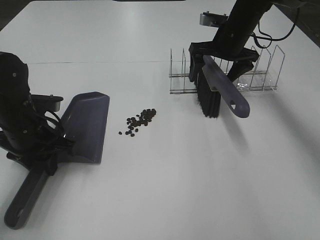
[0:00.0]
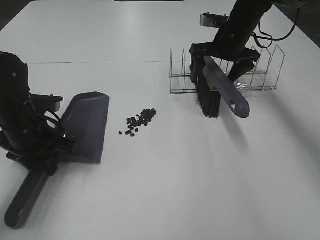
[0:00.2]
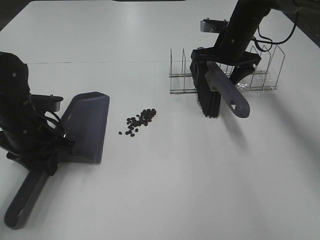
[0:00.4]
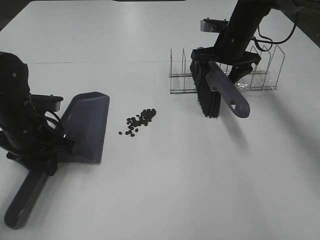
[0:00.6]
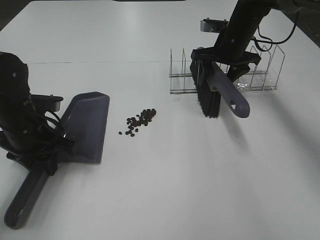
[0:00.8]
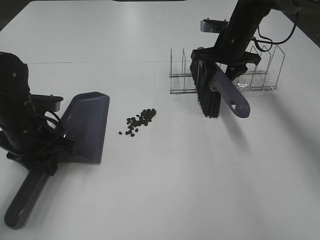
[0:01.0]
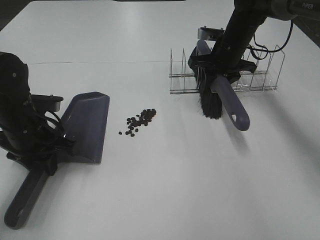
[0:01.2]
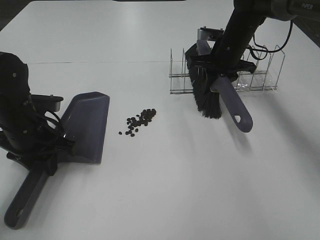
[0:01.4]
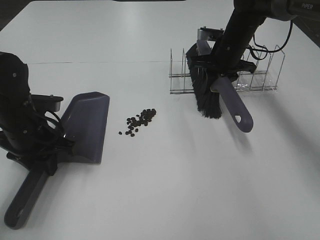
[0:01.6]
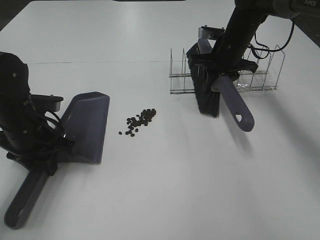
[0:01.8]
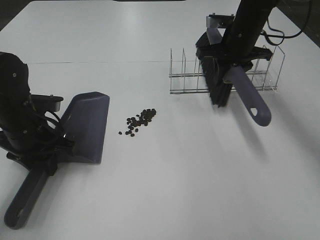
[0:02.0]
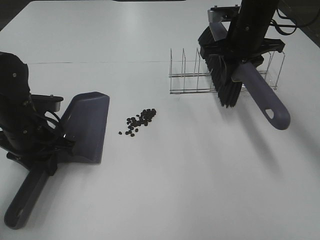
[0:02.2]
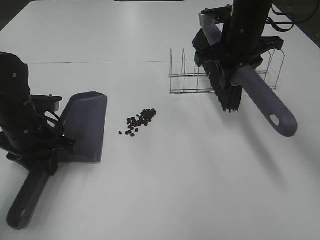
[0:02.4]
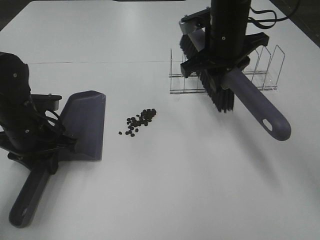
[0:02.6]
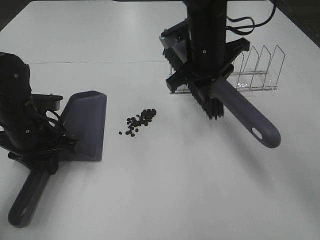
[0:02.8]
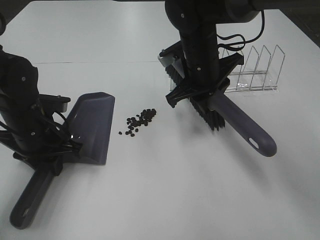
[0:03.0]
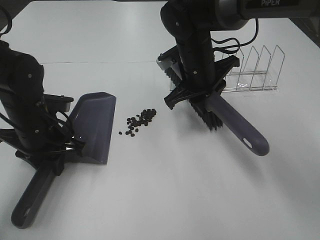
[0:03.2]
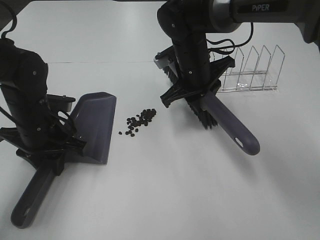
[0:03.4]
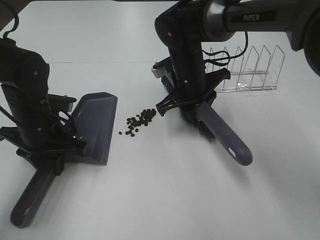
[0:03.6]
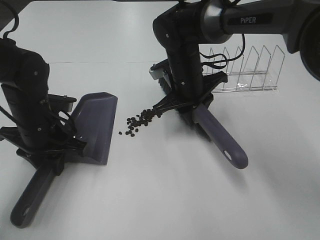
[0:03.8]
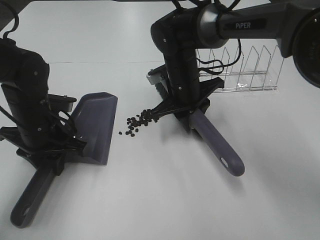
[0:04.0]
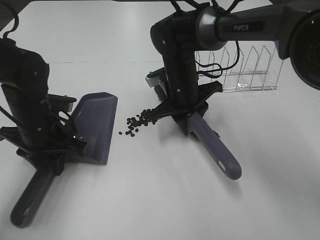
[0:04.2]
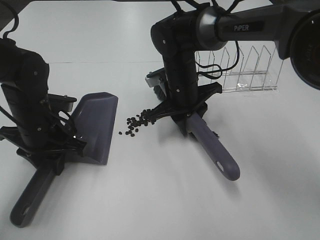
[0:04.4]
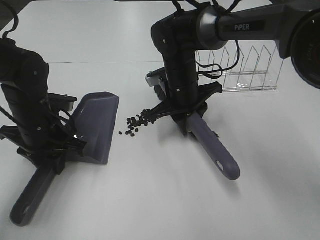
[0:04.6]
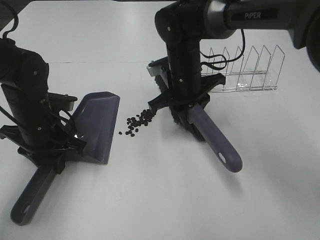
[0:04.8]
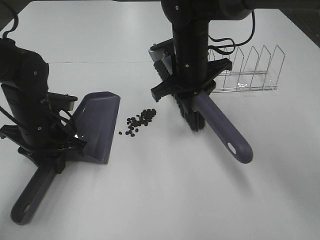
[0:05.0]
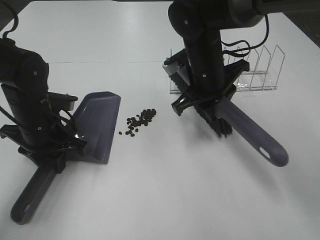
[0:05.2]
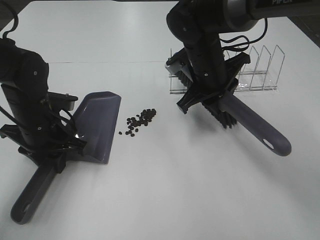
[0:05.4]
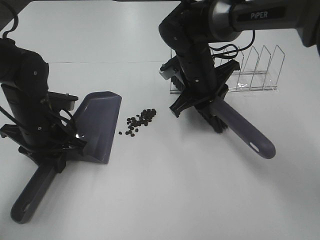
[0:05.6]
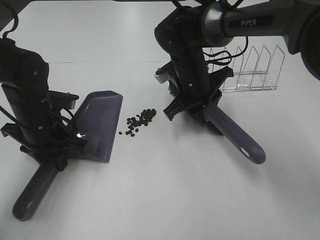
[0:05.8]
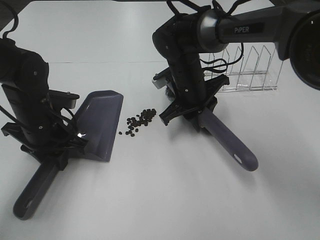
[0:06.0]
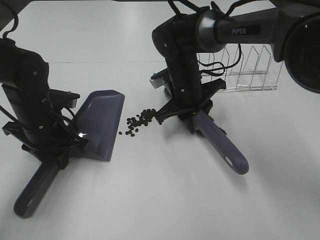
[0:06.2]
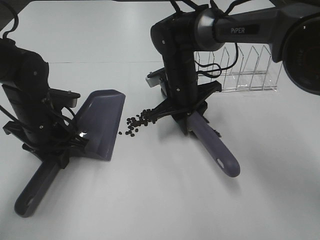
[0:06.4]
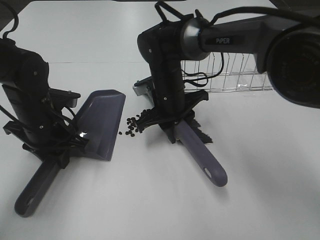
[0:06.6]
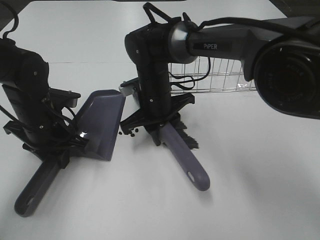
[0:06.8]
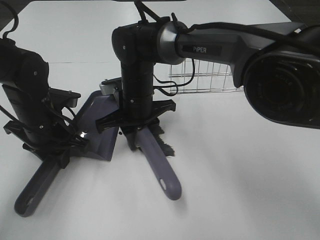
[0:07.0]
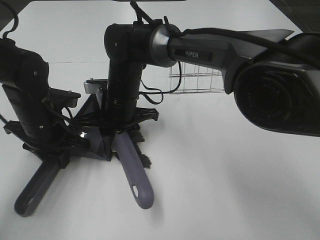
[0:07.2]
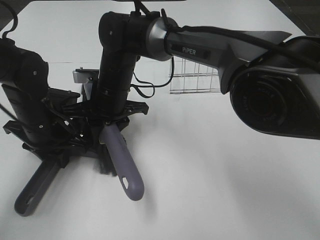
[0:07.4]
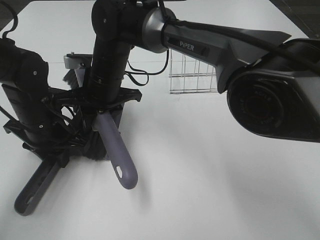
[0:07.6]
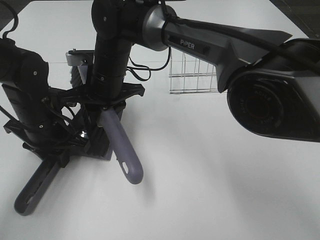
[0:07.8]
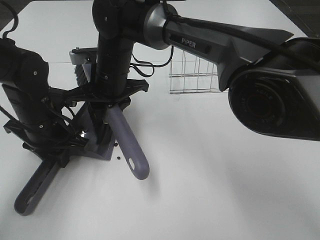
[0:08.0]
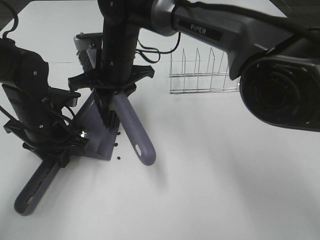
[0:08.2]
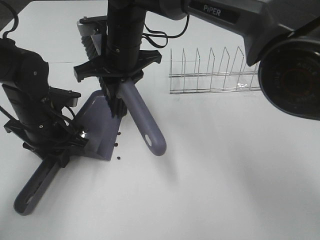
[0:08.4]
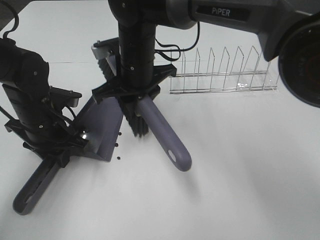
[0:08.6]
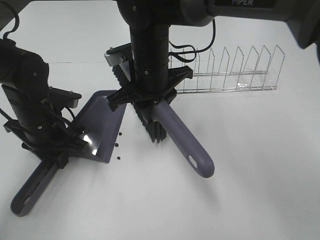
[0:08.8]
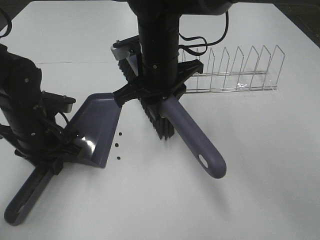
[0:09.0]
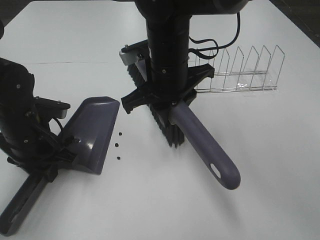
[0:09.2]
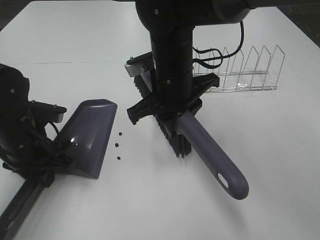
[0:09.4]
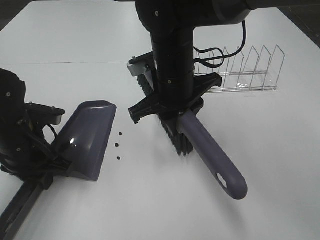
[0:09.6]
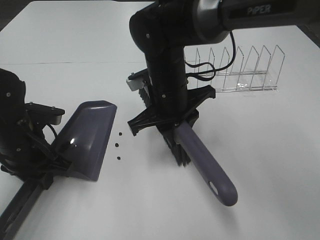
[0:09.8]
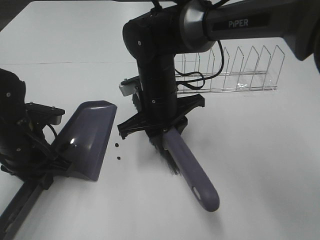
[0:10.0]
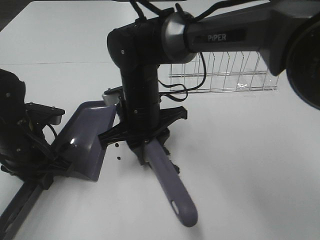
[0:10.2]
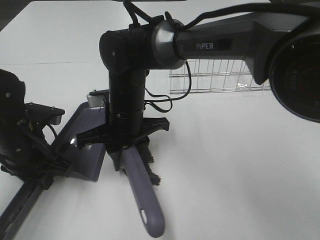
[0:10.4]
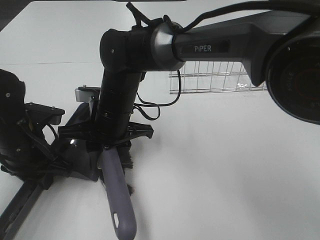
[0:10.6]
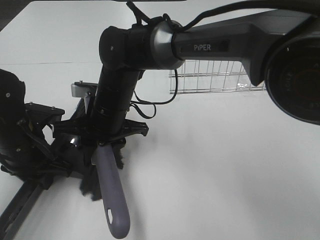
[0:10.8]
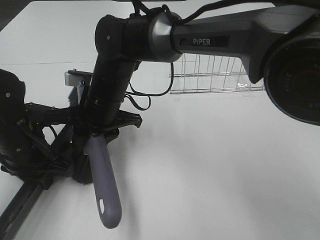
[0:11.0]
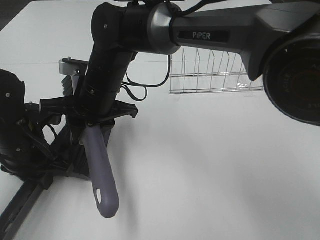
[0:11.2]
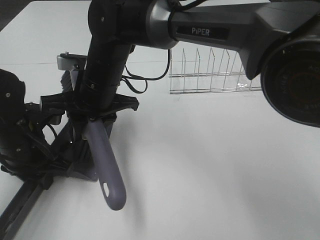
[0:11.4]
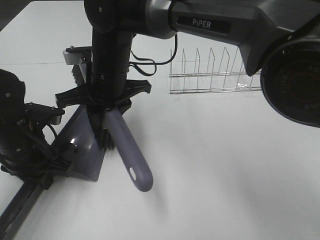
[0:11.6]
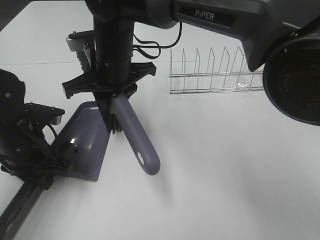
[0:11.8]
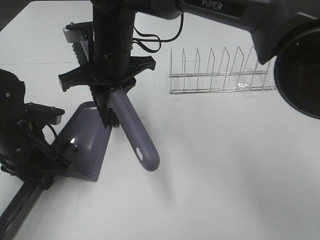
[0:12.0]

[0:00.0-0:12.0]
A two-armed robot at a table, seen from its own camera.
Task of the whole recording: Sweep Coffee Bean.
Step, 0:01.6 to 0:11.6: Right hand:sweep the coffee beans into the dustpan.
0:00.0 to 0:01.6: The right gripper closes.
0:01.6 to 0:03.0: The right gripper shifts approximately 15 cm backward and to the left.
0:03.0 to 0:04.4: The right gripper heads downward, covering approximately 5 cm.
0:06.0 to 0:07.6: The right gripper shifts about 15 cm to the left.
0:07.6 to 0:09.0: The right gripper is displaced to the right and upward by about 10 cm.
0:09.0 to 0:10.4: The right gripper is displaced downward and to the left by about 10 cm.
0:10.4 to 0:12.0: The right gripper is displaced upward by about 10 cm.

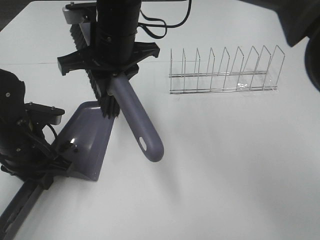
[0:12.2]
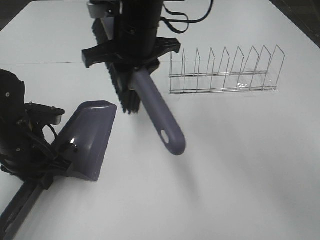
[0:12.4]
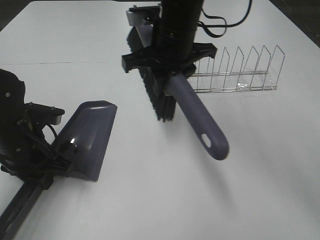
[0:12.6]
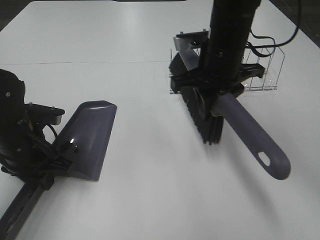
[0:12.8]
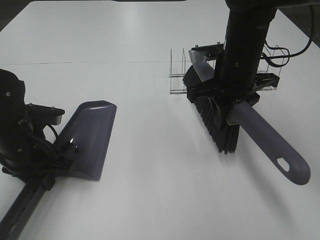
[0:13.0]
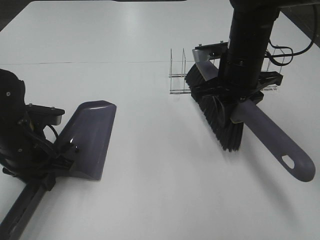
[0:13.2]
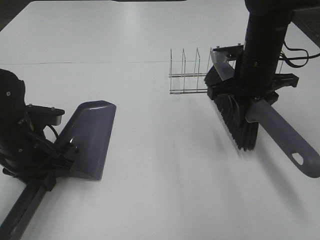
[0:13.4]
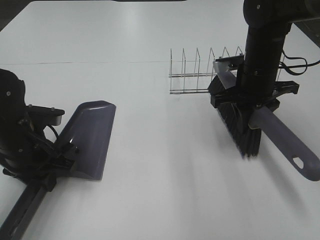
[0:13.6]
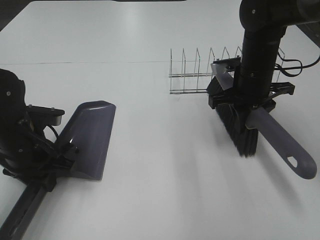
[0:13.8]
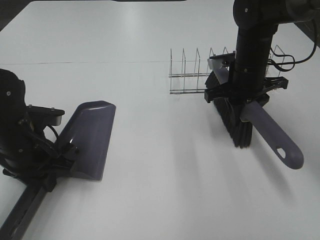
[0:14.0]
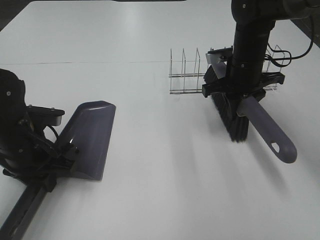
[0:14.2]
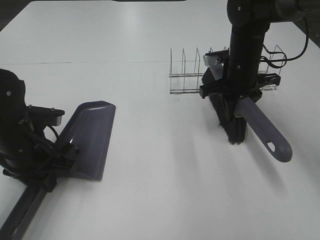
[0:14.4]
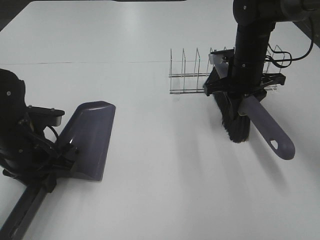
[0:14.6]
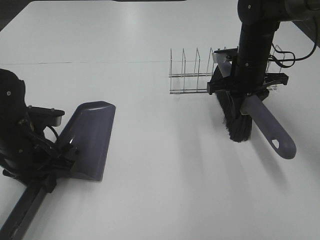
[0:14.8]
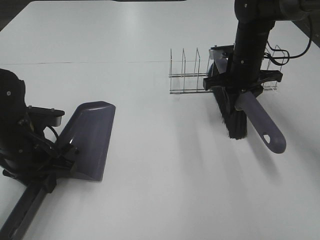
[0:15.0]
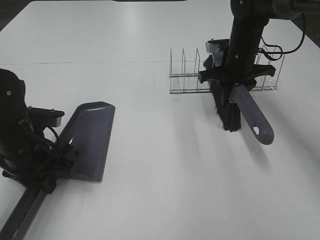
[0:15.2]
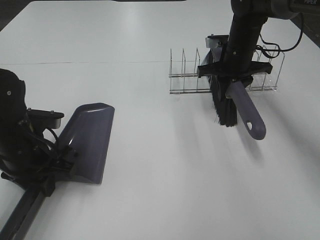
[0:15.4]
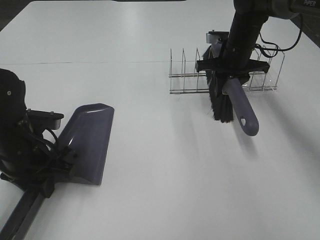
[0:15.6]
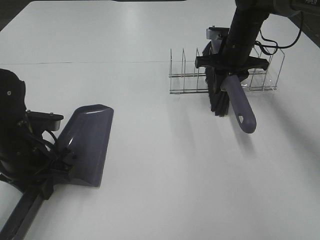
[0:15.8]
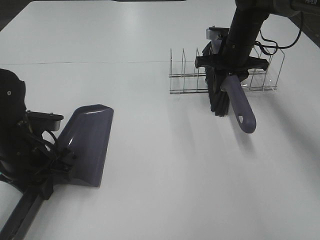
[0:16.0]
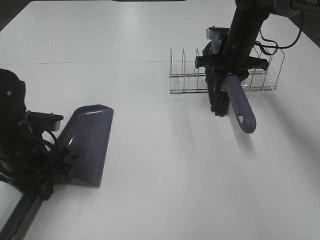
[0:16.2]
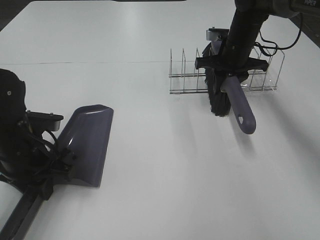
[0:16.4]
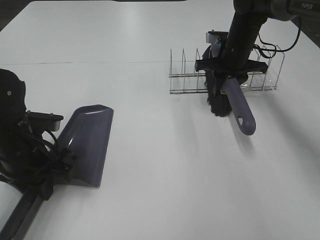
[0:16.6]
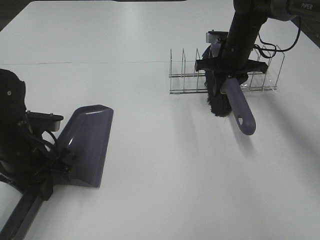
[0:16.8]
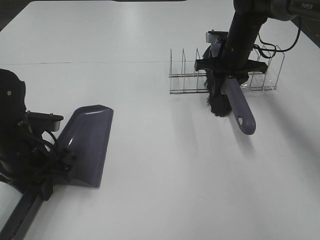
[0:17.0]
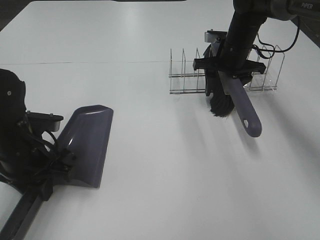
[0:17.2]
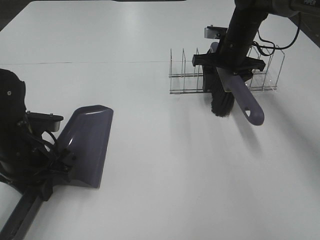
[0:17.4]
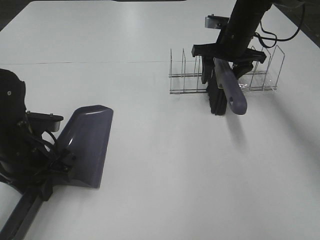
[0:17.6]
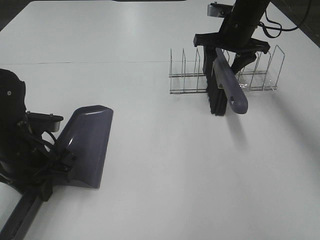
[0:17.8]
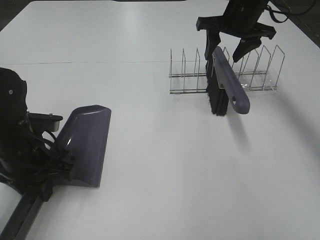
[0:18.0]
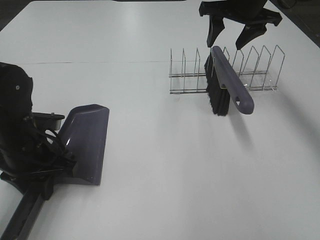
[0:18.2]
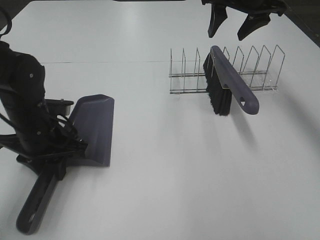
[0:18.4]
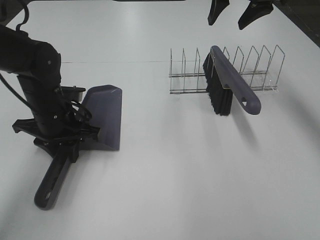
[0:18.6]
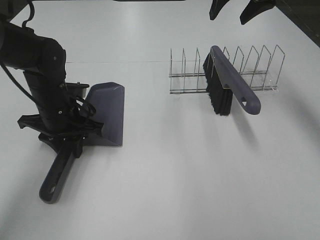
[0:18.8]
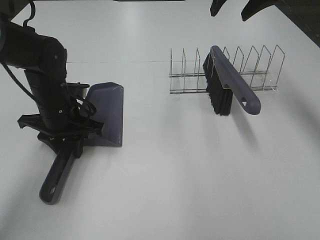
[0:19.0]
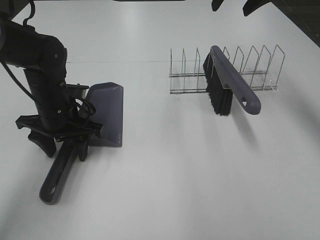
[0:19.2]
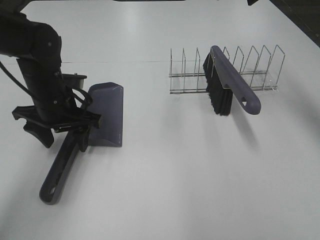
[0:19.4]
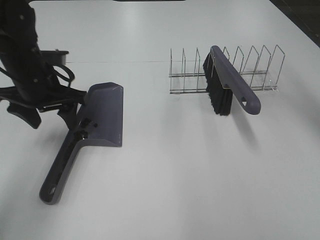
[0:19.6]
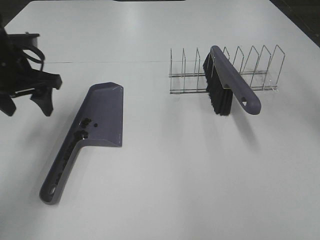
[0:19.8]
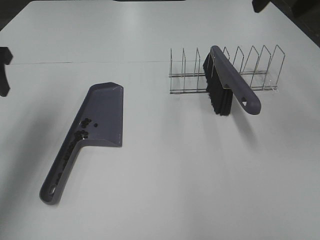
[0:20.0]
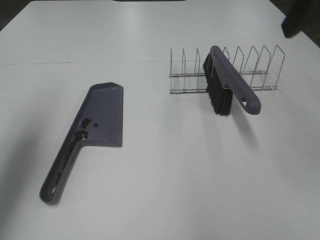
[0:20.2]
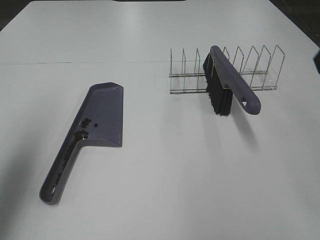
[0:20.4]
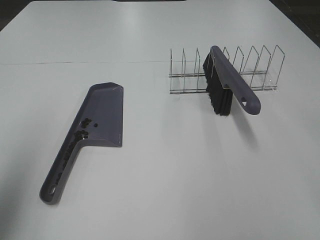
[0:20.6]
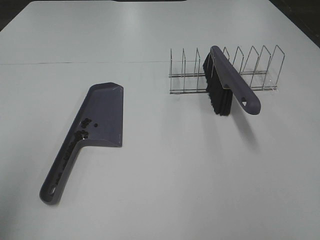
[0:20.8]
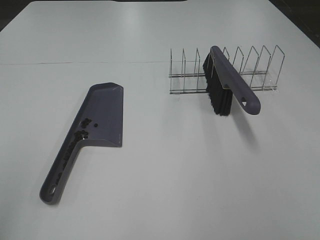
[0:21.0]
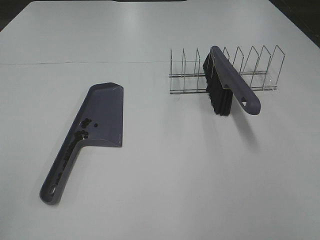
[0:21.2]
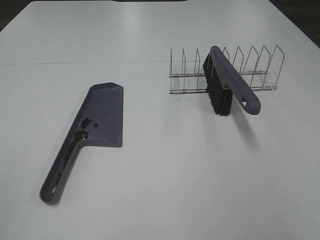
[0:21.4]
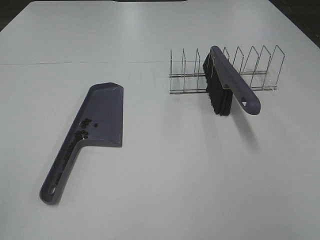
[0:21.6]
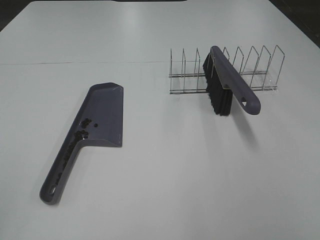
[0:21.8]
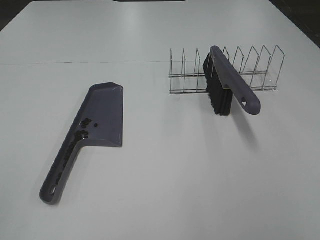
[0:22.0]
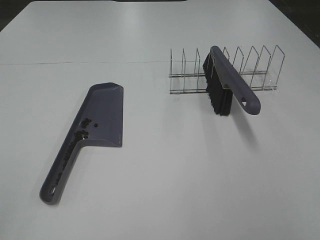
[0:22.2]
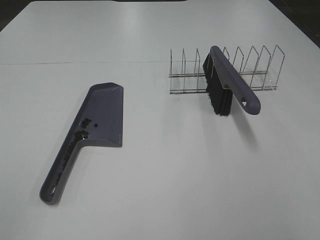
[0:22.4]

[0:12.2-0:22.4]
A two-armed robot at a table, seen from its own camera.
Task of the whole recording: Sweep Coffee Bean.
Step, 0:12.2 to 0:17.6: Right hand:place the broom on the rack.
Step, 0:17.8 to 0:19.6: Left hand:place the dustpan on the table.
0:12.2 to 0:13.6: The right gripper travels to the right by about 25 cm.
0:13.6 to 0:15.2: The right gripper moves forward, roughly 10 cm.
0:15.2 to 0:16.6: The grippers make only small movements.
0:16.6 to 0:18.0: The right gripper goes approximately 10 cm upward, and opens.
0:18.0 to 0:19.4: The right gripper heads upward, covering roughly 10 cm, while the left gripper shifts approximately 10 cm forward, and opens its fingers.
0:19.4 to 0:21.0: The right gripper moves backward, some 40 cm; the left gripper goes approximately 40 cm backward, upward and to the left.
